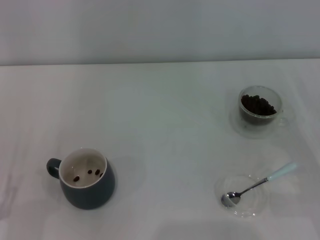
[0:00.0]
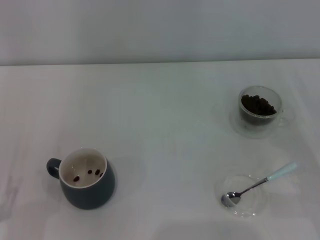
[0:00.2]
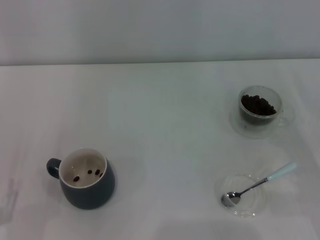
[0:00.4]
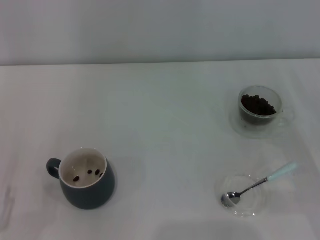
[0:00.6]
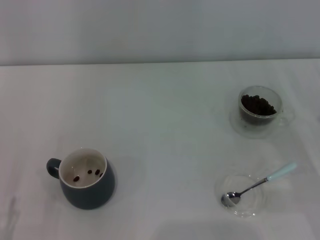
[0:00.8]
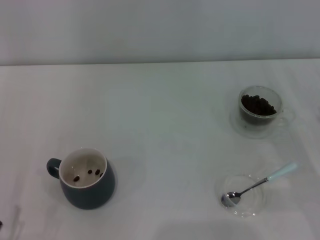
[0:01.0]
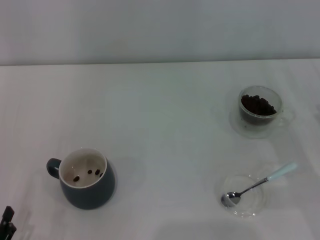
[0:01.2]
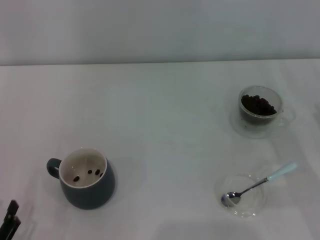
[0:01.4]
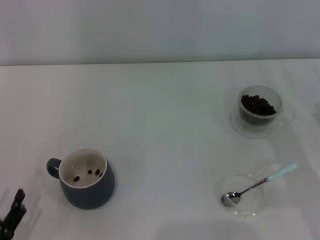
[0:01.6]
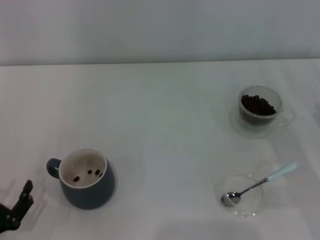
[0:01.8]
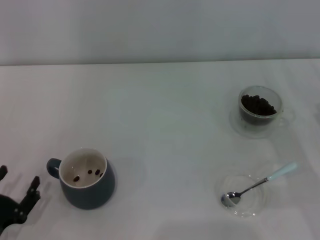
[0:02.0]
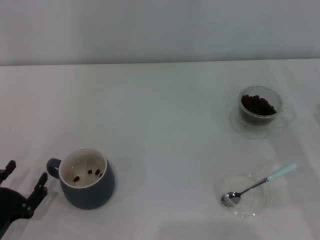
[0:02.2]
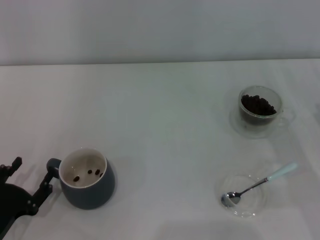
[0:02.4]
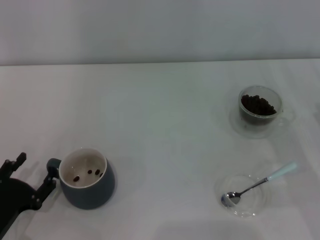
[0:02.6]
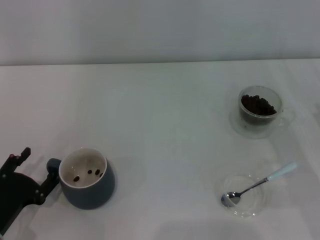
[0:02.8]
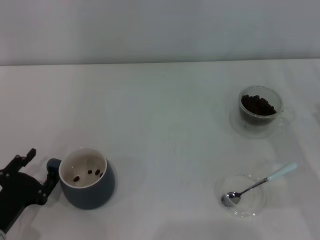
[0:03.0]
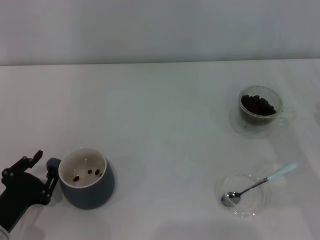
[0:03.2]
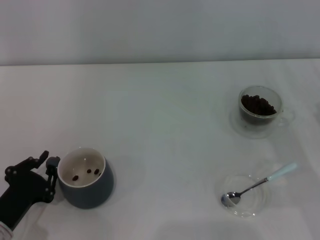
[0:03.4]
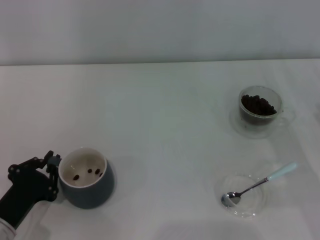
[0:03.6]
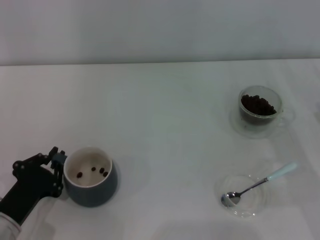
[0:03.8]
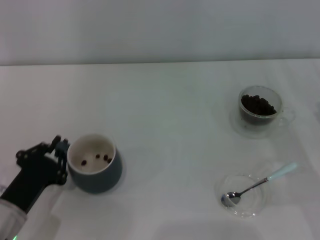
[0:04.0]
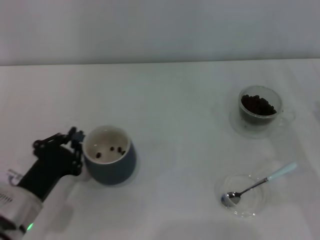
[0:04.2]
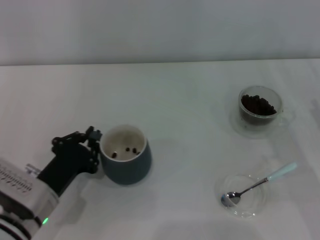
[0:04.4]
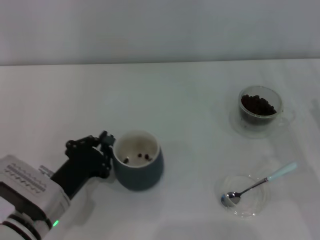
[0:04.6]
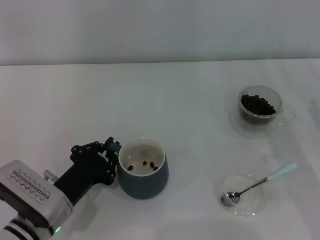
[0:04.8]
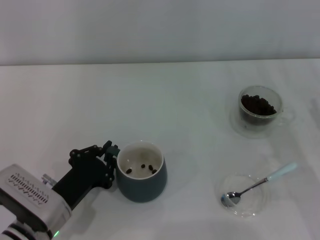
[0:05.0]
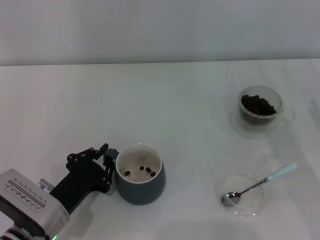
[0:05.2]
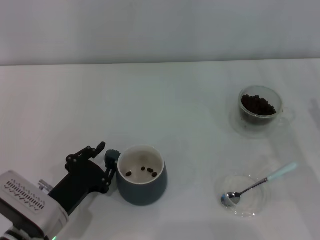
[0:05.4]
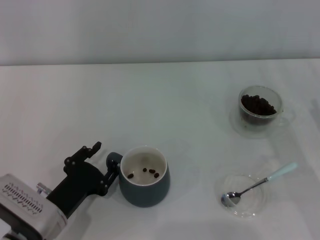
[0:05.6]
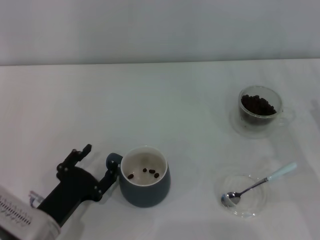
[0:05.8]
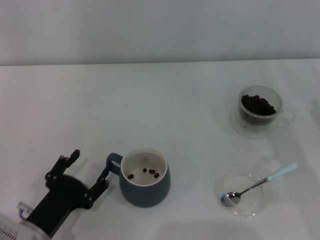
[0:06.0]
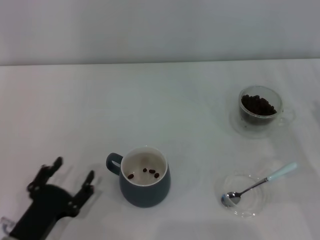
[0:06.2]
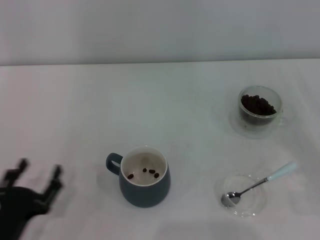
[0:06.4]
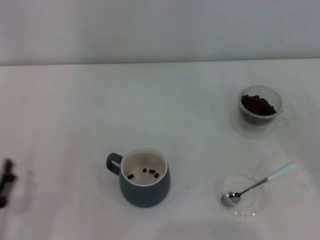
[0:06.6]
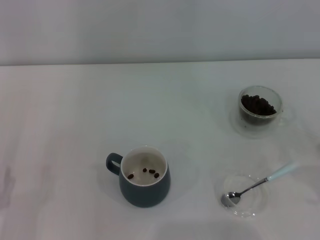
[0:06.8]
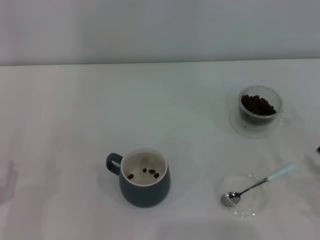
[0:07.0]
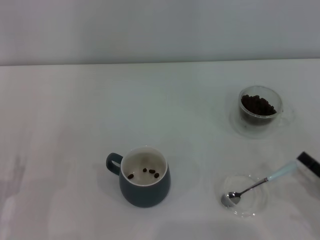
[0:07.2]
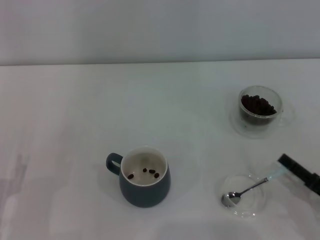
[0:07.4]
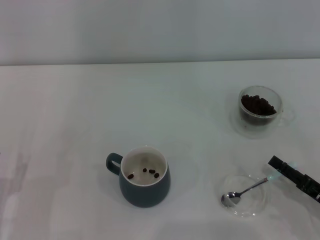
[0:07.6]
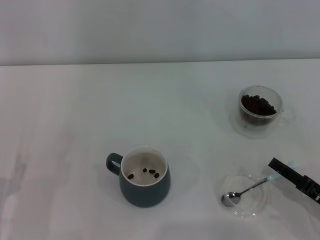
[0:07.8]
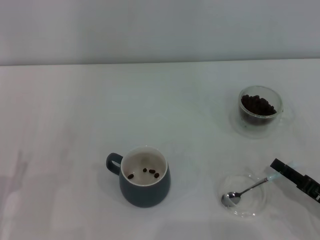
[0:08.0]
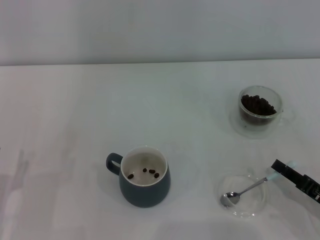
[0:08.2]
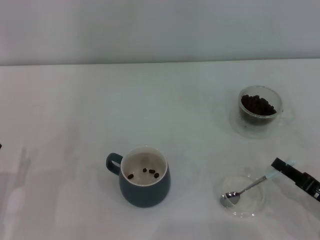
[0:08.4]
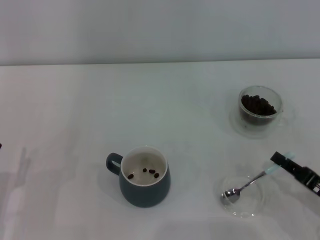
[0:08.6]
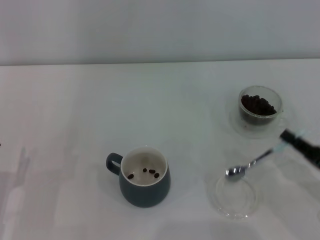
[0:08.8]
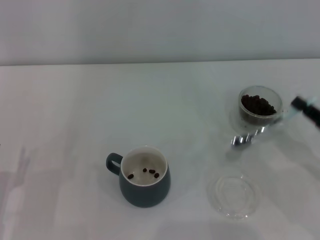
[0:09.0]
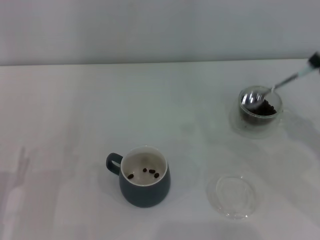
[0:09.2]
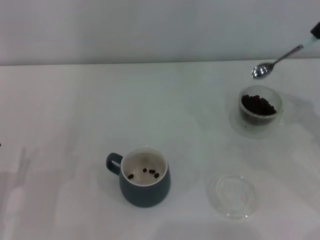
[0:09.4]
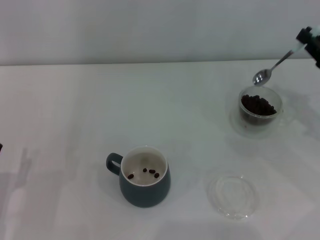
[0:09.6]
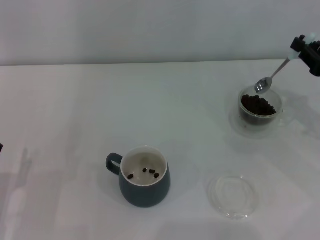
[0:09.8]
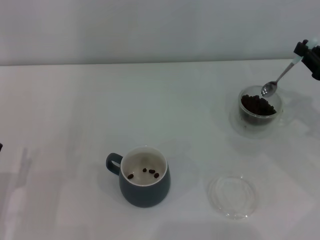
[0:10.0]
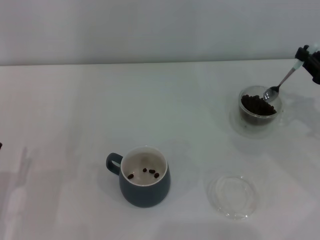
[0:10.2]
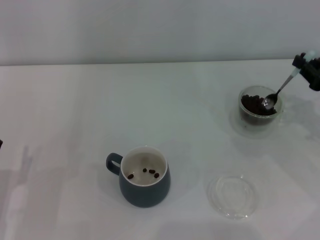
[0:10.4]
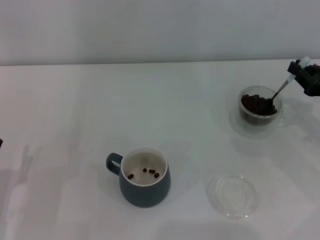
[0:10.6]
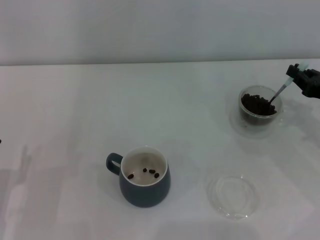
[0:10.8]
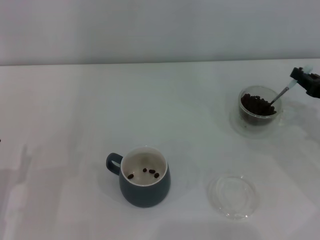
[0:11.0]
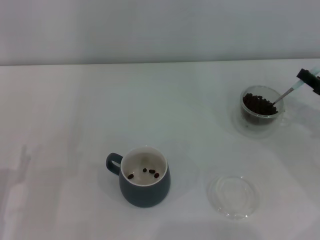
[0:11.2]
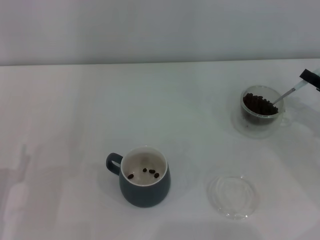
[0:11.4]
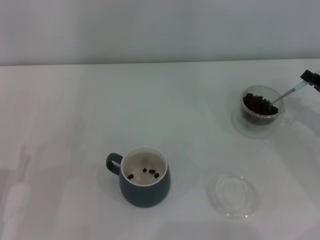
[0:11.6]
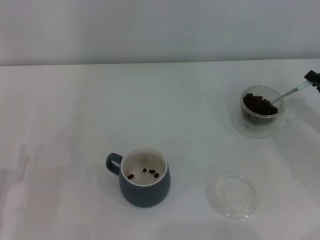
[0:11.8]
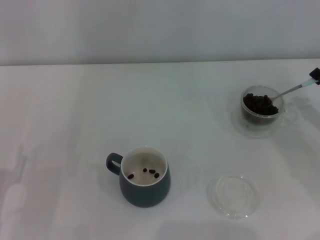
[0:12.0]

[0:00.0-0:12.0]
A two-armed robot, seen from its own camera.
Task of the whole recording: Use a blue spoon to take out the coffee beans from the glass and pour them into the gray cup.
Step, 0.0 to 6.0 s: Move the cup to the center of view with the left gripper.
Step, 6.4 to 8.8 s: Pick up the spoon with the right gripper.
0.0 to 1.6 s: The grippers make only small movements.
1.6 to 3.0 s: The left gripper shifts some 10 cm forward.
3.0 to 4.4 s: The left gripper heads to the right, covering some 5 cm, and closes.
4.4 to 6.0 s: The left gripper moves backward, approximately 5 cm, and opens up.
6.0 to 7.6 s: The left gripper is displaced to the left by roughly 10 cm. The right gripper shifts some 10 cm backward and downward.
7.6 to 9.0 s: The right gripper shifts about 10 cm upward and forward, and closes up.
9.0 to 10.4 s: The right gripper is displaced forward by some 10 cm.

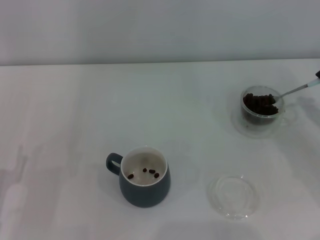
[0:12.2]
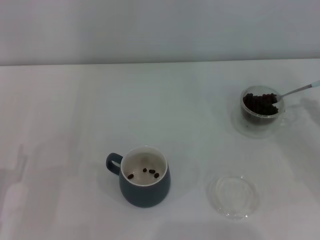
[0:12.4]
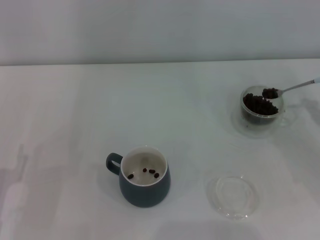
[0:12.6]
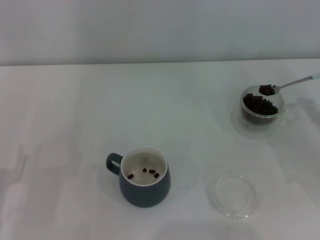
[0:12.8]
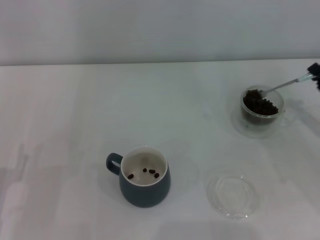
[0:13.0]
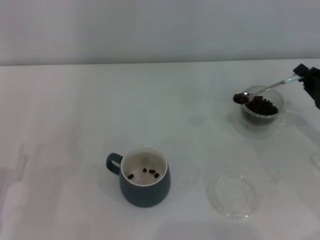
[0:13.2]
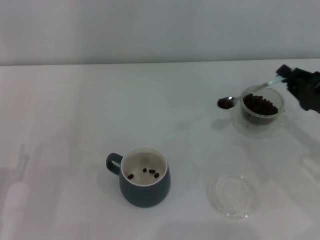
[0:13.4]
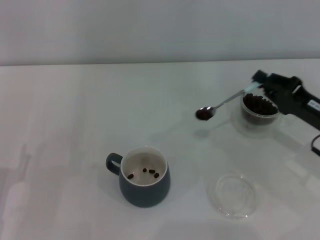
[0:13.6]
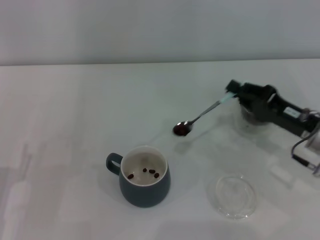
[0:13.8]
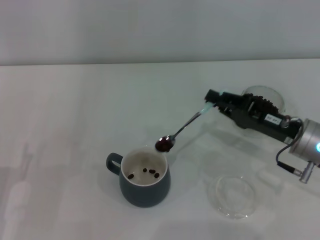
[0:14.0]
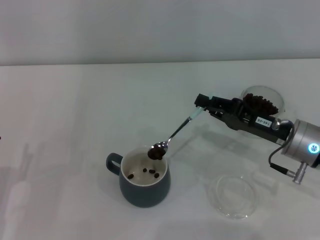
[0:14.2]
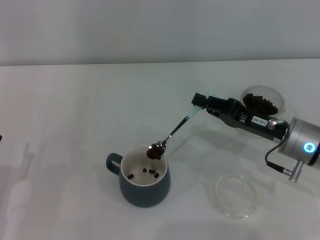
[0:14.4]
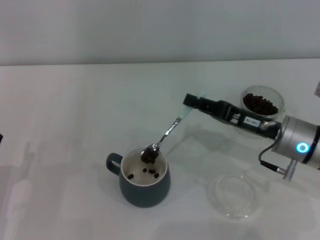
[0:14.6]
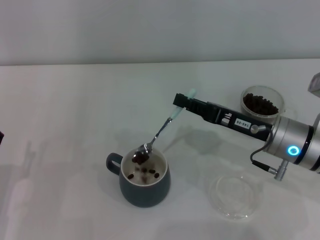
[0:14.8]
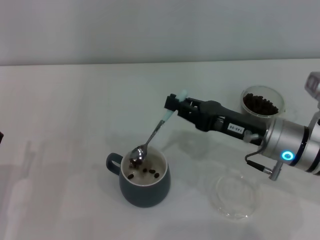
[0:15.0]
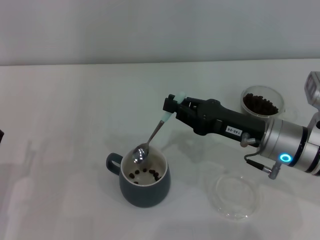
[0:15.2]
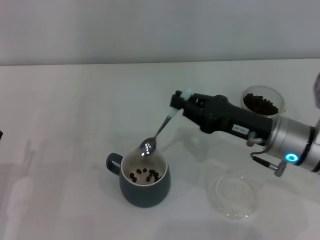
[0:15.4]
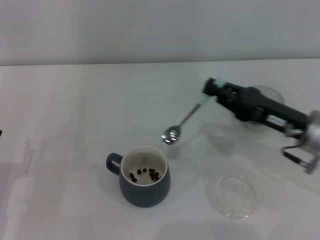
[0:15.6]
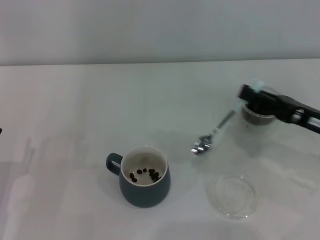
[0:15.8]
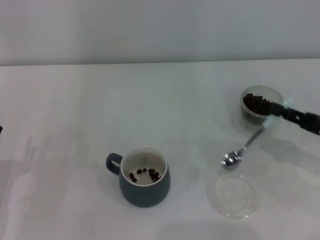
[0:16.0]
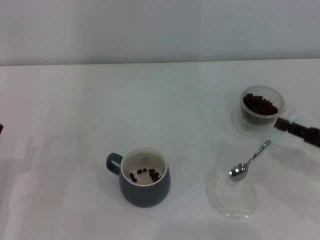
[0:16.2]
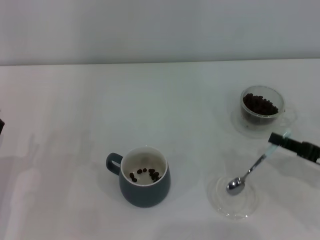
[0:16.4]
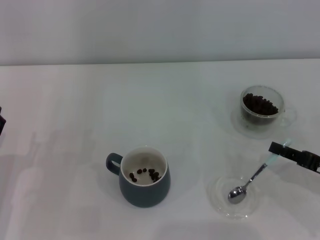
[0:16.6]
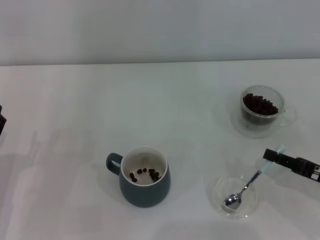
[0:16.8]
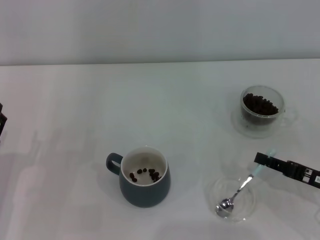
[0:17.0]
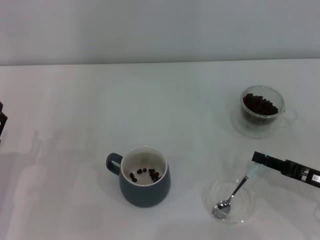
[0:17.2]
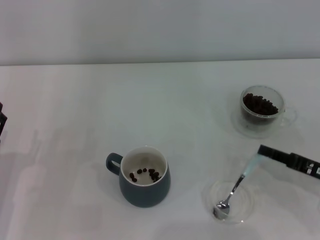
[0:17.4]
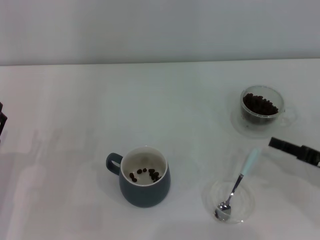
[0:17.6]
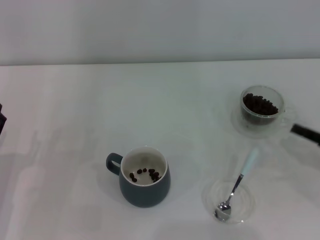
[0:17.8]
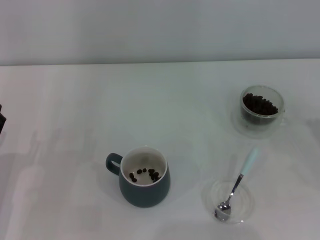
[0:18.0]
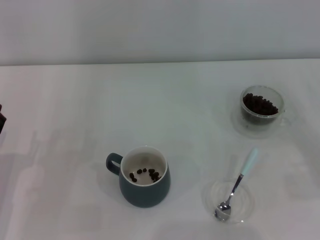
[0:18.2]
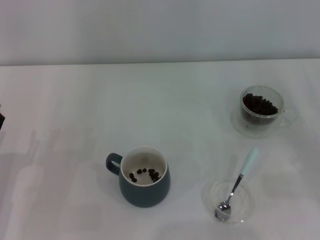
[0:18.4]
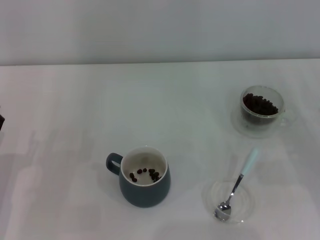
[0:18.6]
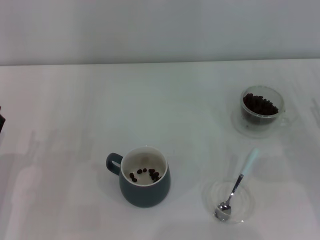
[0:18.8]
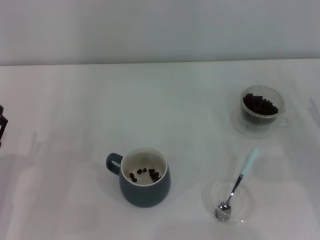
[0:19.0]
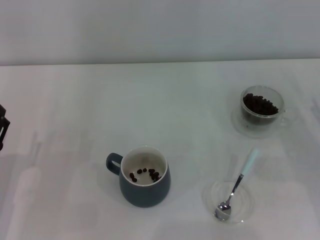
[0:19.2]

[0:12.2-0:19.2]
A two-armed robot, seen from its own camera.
Task of the whole recording: Use a blue spoon to take out the coffee beans from the glass and pour them into the gray cup.
Step, 12.2 to 15.4 s: Scoop a spoonful of beans into the cup with the right gripper.
Step, 15.8 to 17.6 s: Place the spoon back in its original place with the right gripper.
12.2 to 13.6 s: The right gripper travels to the left by approximately 5 cm.
13.6 to 15.0 s: The right gripper goes about 10 cm to the left.
15.0 to 16.4 s: The right gripper shifts about 15 cm to the right and backward.
16.4 to 17.8 s: The grippers make only small movements.

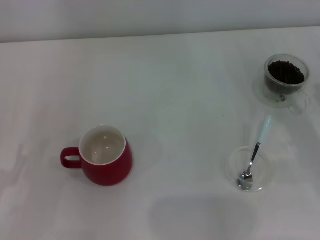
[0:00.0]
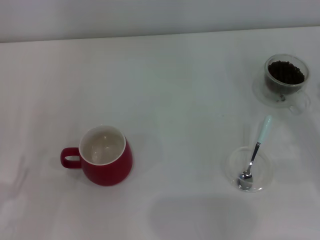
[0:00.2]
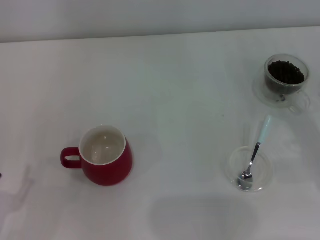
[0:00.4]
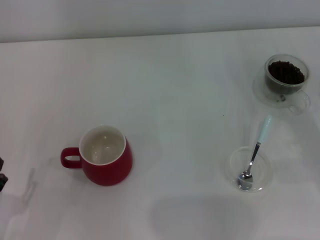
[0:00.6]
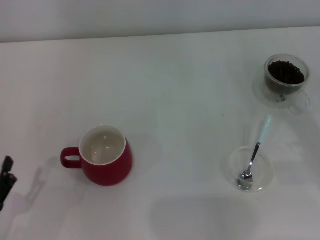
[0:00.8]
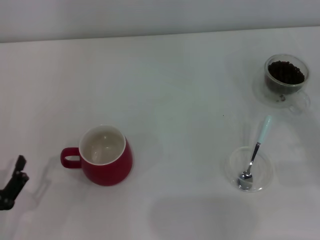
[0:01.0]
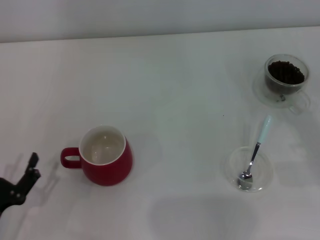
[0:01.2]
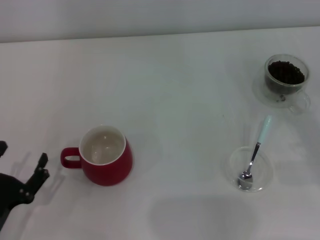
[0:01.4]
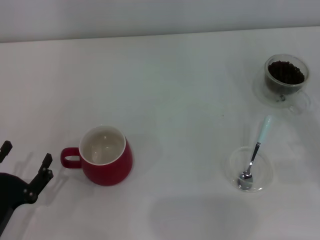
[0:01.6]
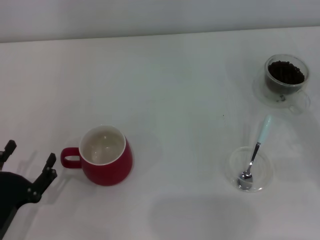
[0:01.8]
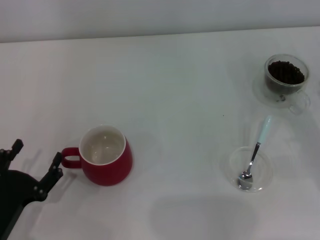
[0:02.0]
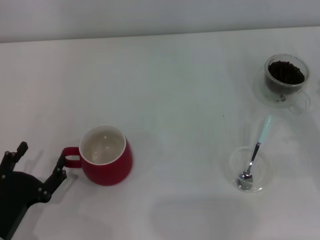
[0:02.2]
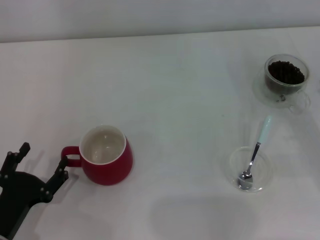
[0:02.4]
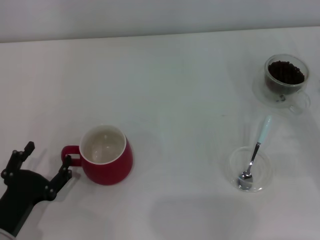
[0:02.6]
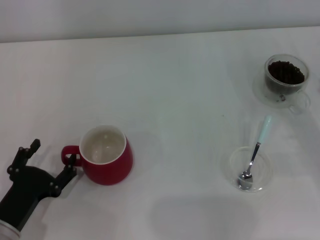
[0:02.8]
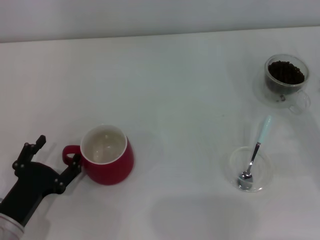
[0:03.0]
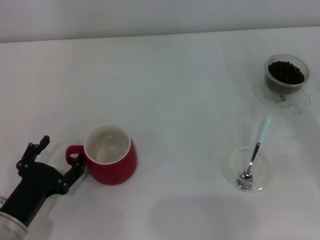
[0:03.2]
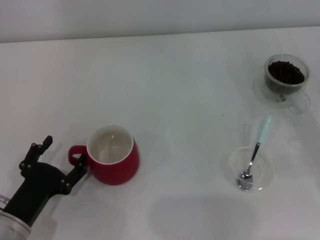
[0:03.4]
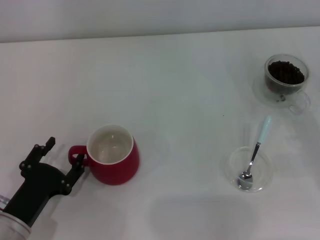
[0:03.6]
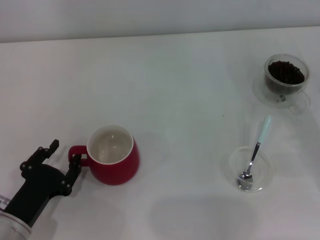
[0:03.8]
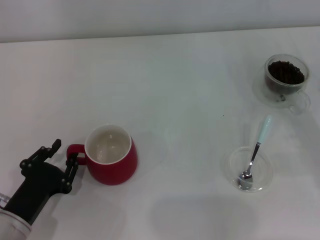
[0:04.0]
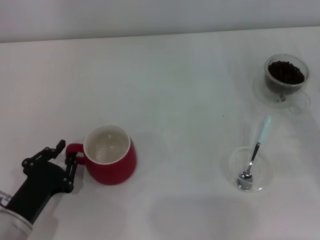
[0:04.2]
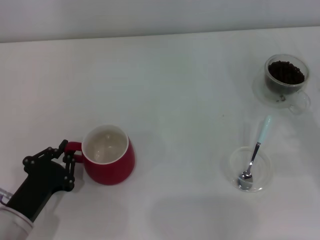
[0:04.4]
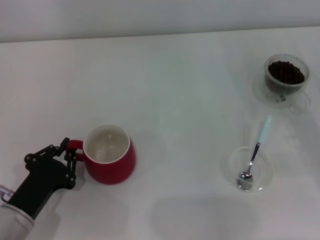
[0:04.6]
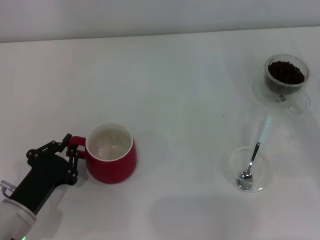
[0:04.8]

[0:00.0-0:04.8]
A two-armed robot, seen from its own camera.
Task of the whole recording: Use a blue spoon to take out the coffee beans from the glass and pour them into the red cup.
0.0 to 1.6 s: There are only small adjustments of the grippers.
1.6 to 3.2 s: The grippers stay close to where they were, moving slightly.
3.2 to 4.8 s: The left gripper closes.
